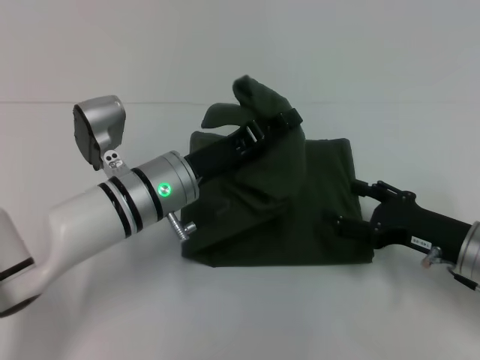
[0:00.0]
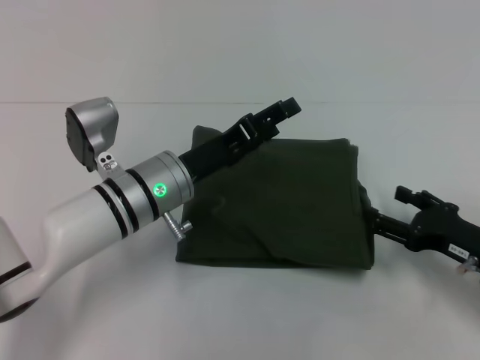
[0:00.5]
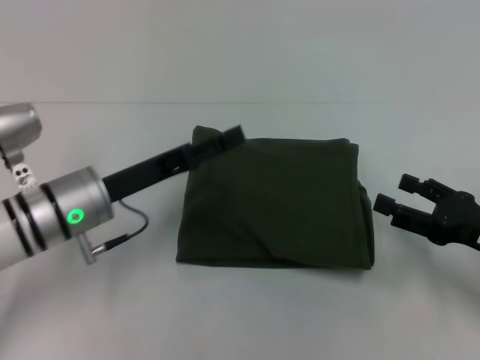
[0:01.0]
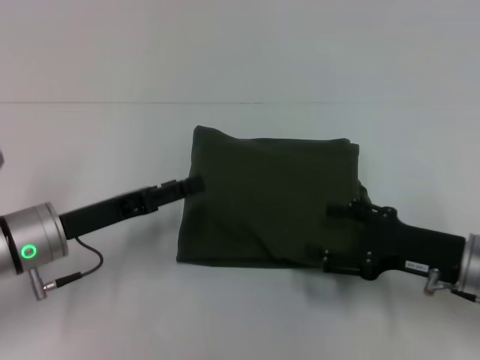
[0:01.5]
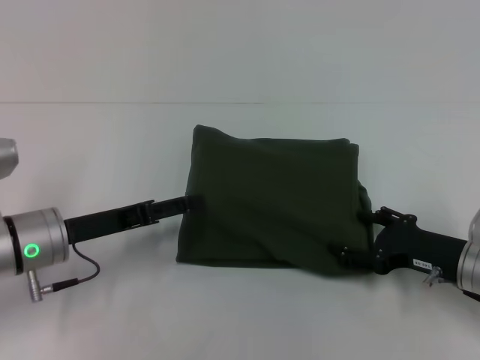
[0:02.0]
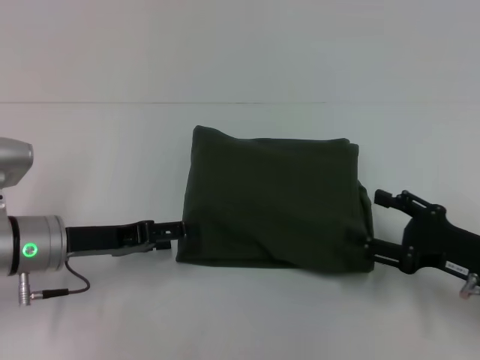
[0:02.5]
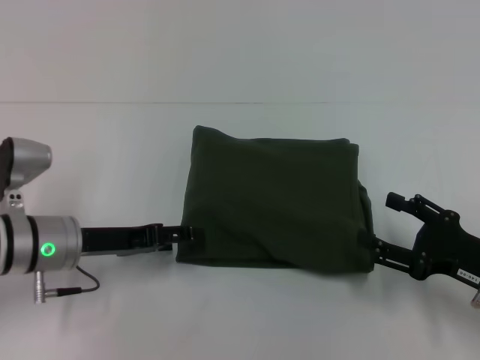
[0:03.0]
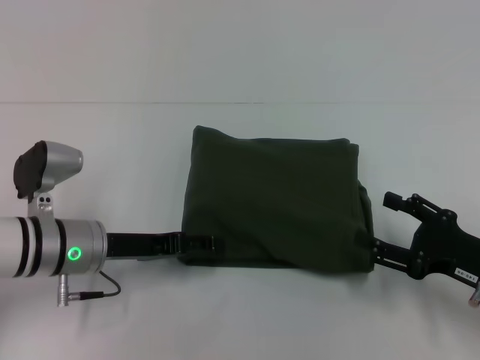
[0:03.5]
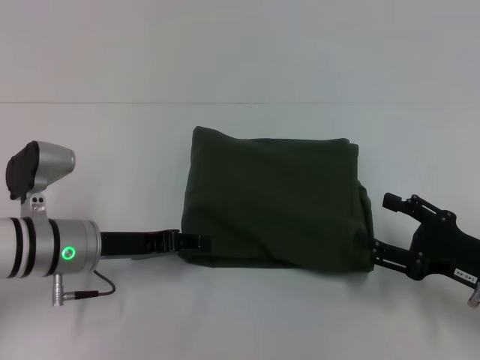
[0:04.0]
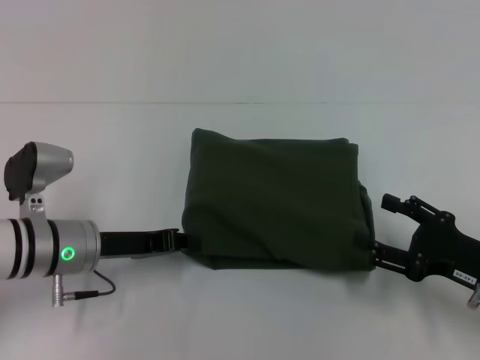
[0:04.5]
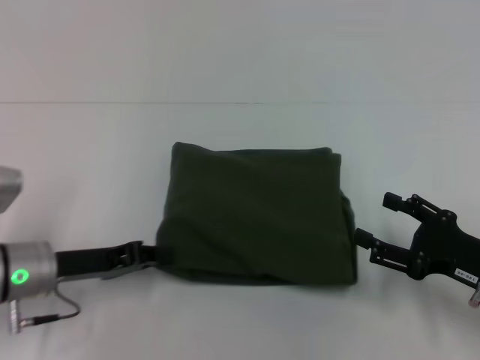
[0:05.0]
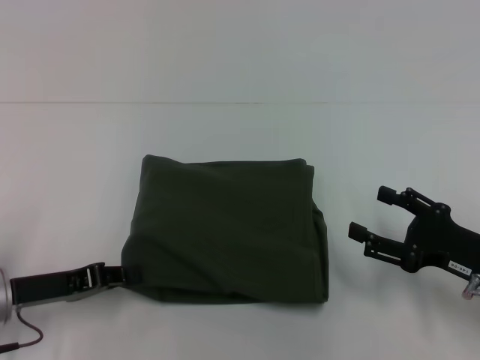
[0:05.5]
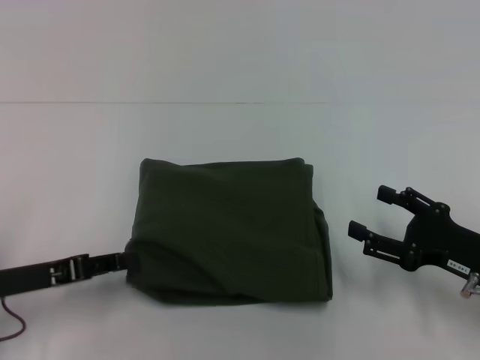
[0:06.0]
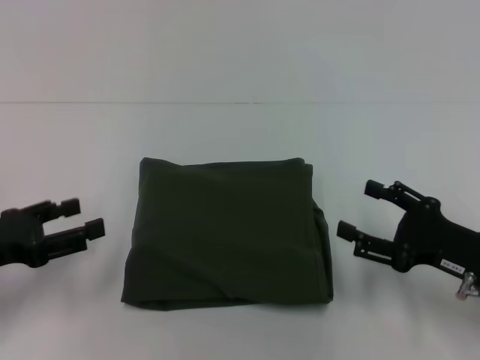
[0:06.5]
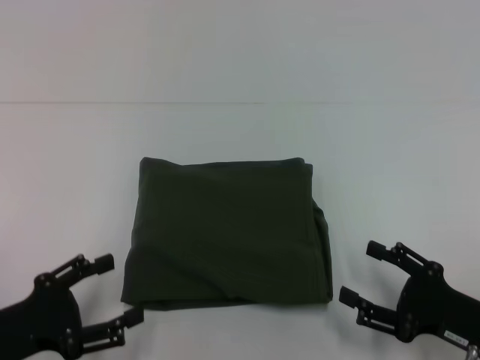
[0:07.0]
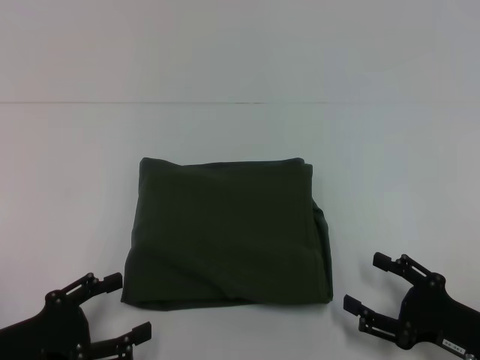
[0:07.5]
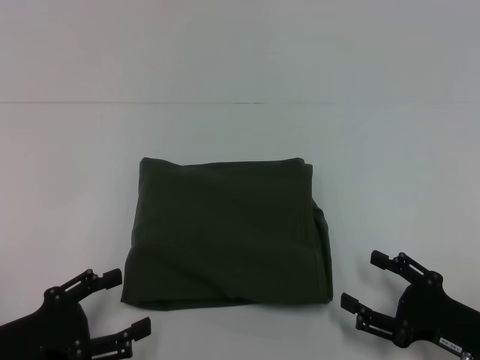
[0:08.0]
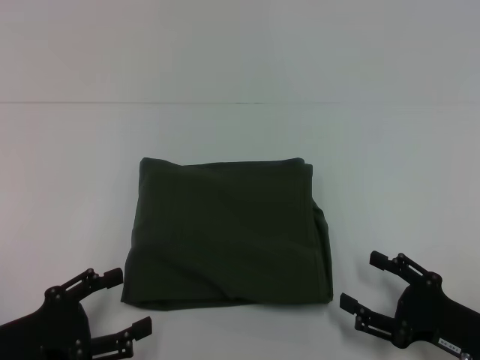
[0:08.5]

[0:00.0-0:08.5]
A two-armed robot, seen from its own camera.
0:00.0 to 0:02.0: The left gripper travels to the left by about 15 cm, and opens its fingers.
0:02.0 to 0:04.0: The right gripper shifts by some 5 cm.
0:04.0 to 0:06.5: The left gripper is displaced to the left and backward by approximately 15 cm, and closes and opens again.
0:06.5 to 0:08.5: The right gripper goes roughly 5 cm backward; the left gripper goes about 10 cm backward and downward, and opens up.
